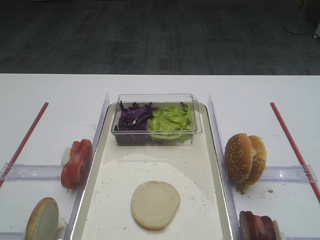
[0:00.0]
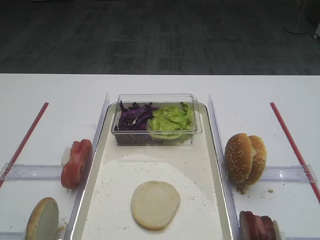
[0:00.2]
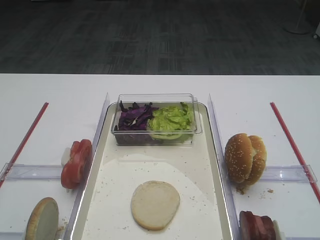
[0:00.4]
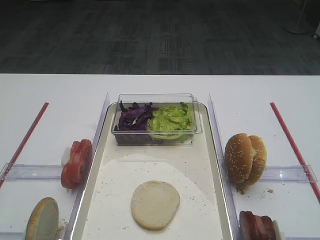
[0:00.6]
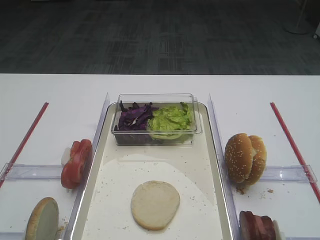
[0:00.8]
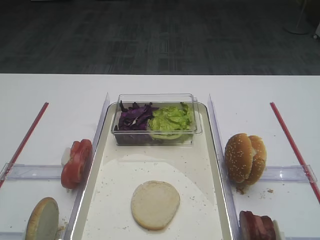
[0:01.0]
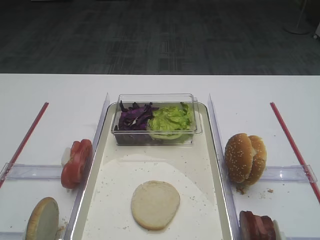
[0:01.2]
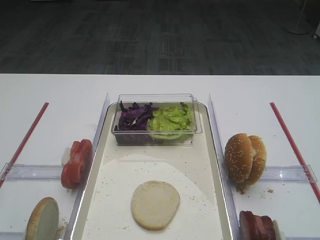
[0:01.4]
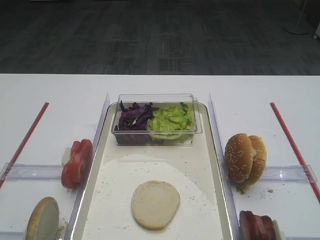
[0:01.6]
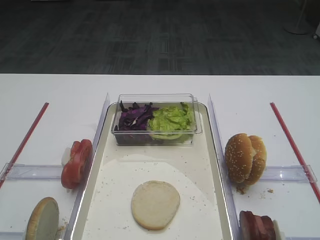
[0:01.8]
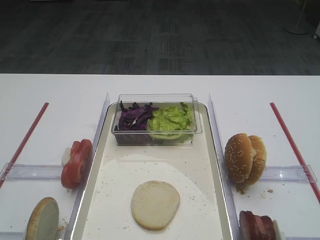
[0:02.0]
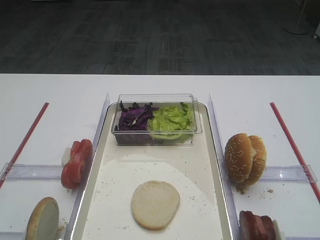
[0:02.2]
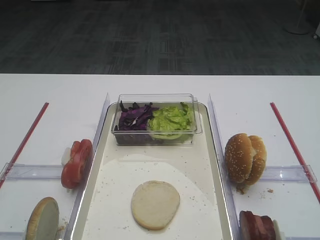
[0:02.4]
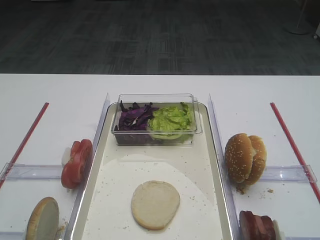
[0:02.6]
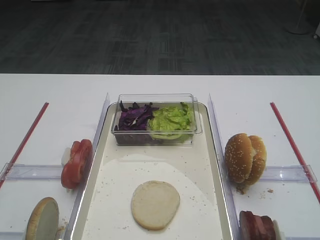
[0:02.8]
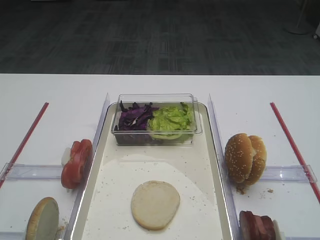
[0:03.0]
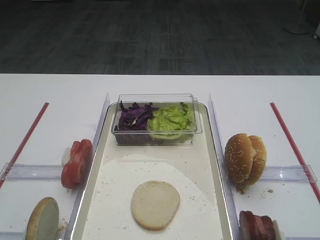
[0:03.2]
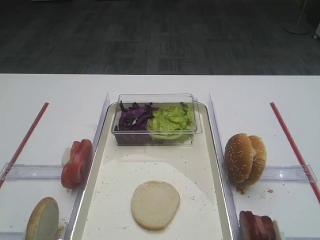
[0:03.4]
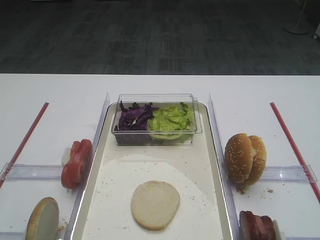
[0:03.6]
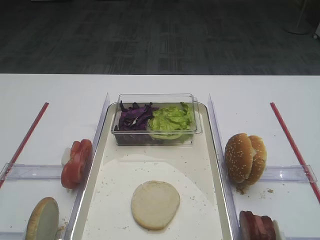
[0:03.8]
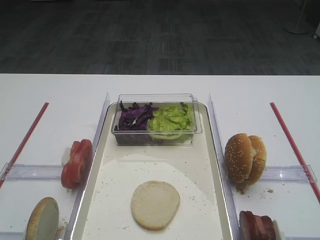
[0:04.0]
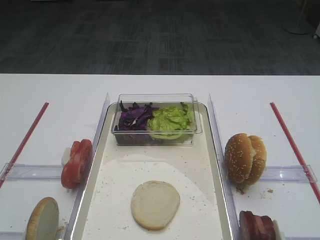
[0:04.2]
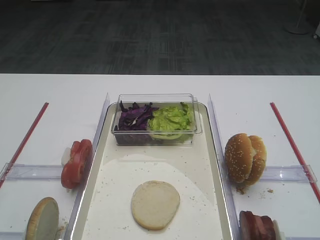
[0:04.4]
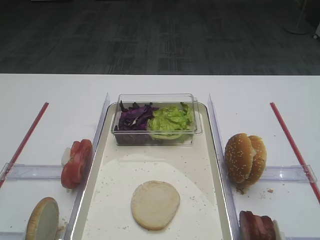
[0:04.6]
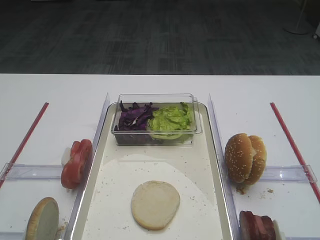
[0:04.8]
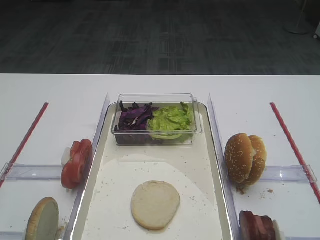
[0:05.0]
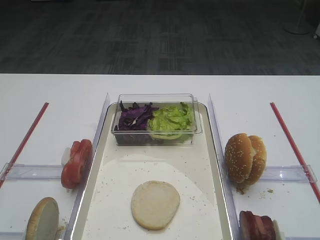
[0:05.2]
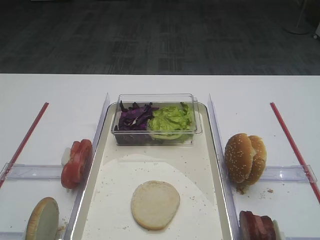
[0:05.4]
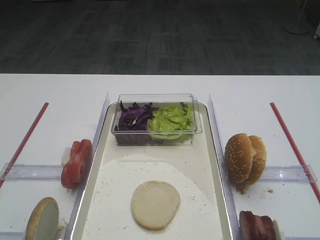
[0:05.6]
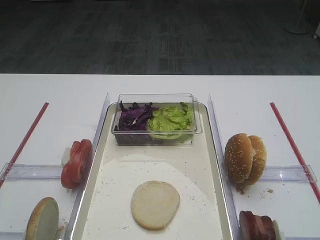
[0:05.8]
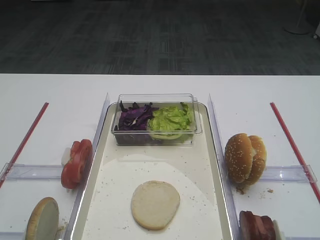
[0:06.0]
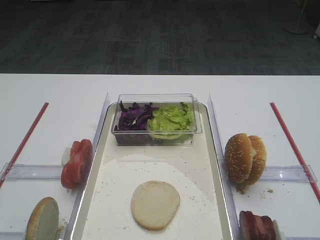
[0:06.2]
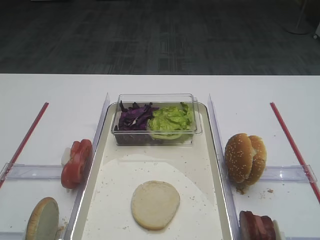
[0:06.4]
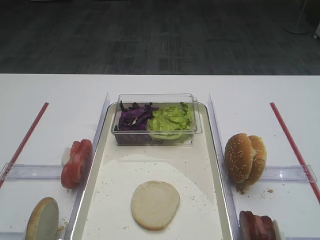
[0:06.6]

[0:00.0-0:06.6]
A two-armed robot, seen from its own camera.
0:01.6 to 0:06.6: Both grippers stay about where they are.

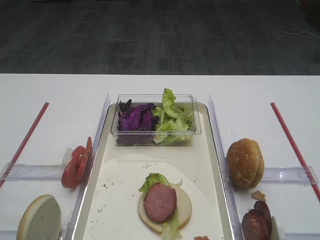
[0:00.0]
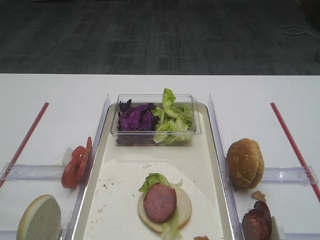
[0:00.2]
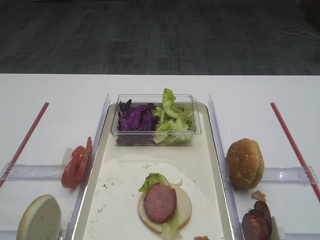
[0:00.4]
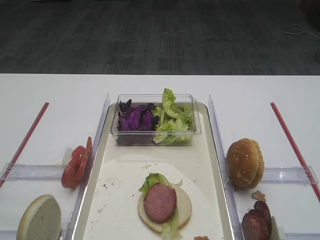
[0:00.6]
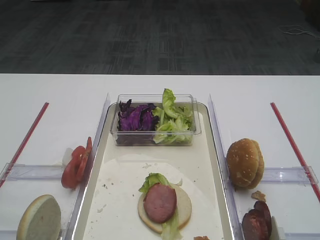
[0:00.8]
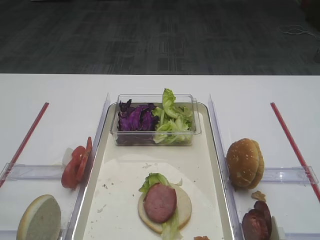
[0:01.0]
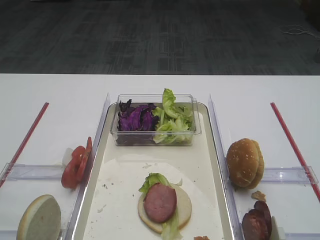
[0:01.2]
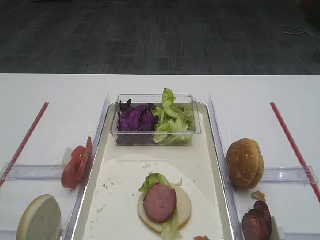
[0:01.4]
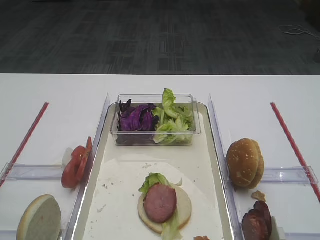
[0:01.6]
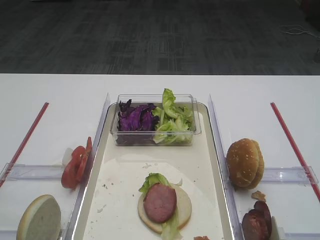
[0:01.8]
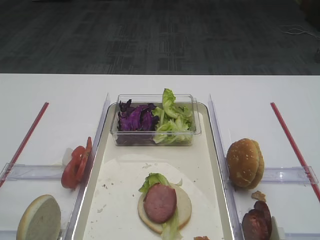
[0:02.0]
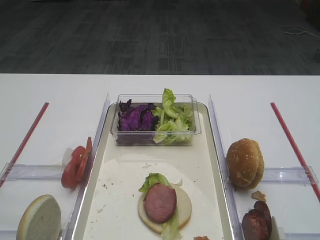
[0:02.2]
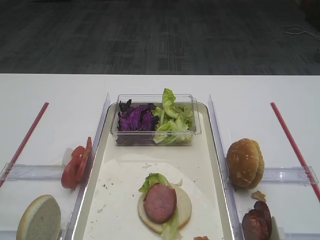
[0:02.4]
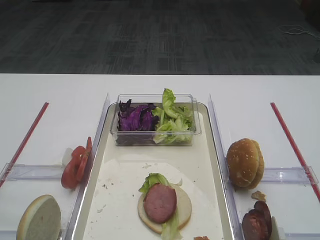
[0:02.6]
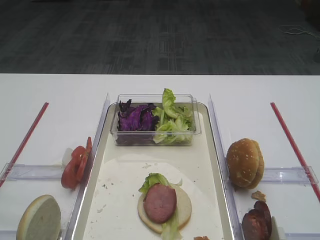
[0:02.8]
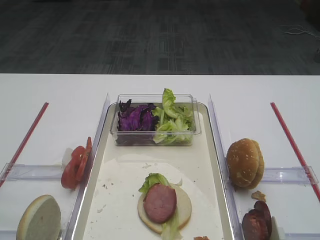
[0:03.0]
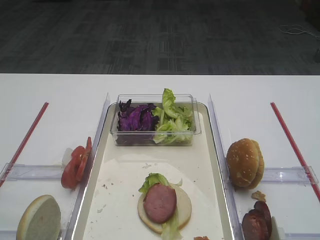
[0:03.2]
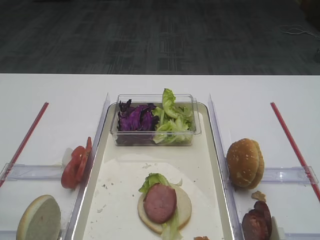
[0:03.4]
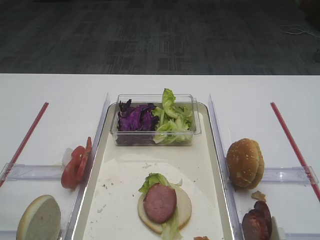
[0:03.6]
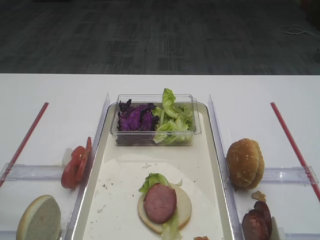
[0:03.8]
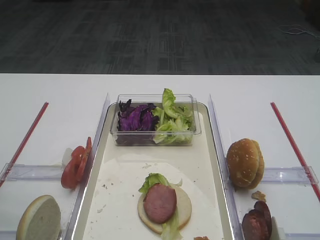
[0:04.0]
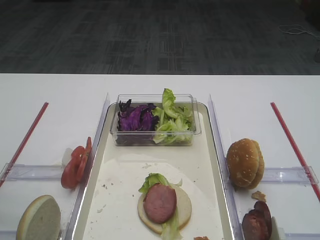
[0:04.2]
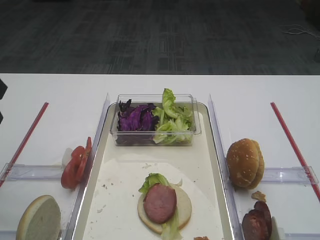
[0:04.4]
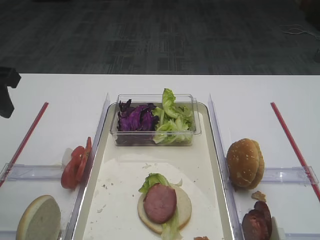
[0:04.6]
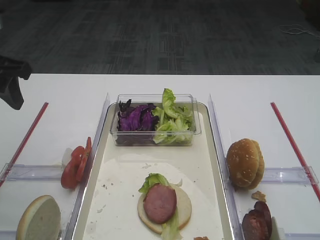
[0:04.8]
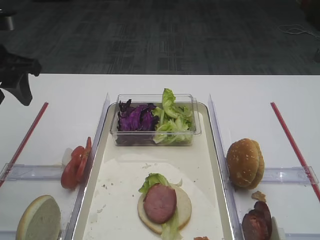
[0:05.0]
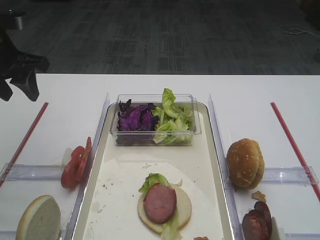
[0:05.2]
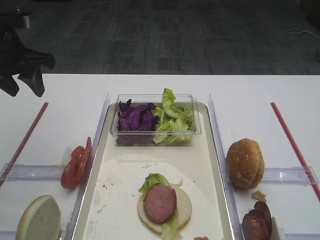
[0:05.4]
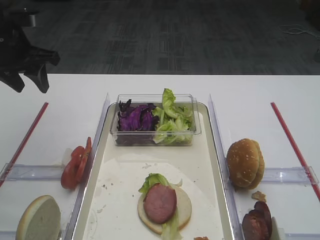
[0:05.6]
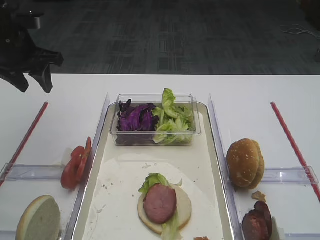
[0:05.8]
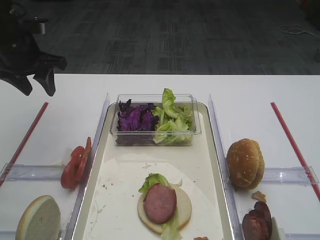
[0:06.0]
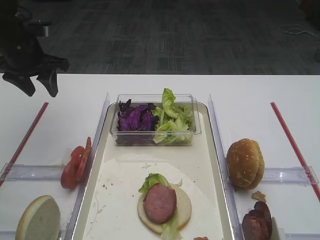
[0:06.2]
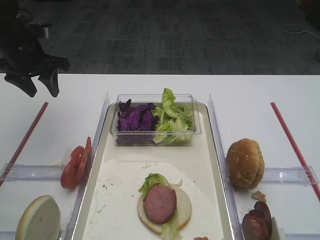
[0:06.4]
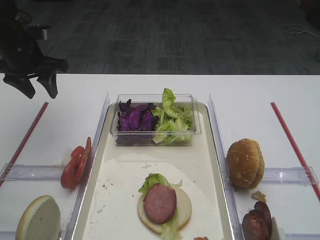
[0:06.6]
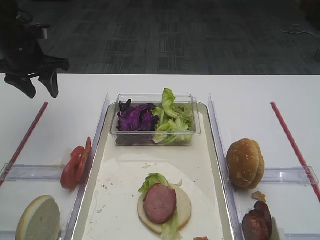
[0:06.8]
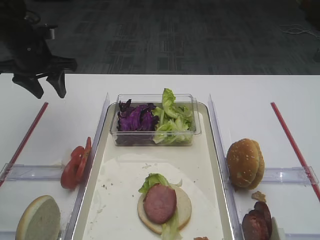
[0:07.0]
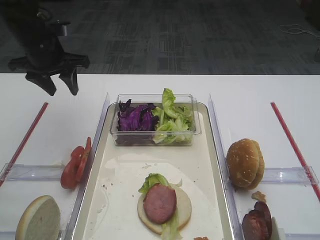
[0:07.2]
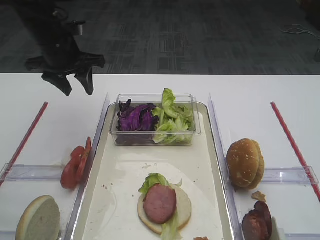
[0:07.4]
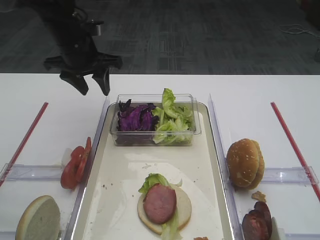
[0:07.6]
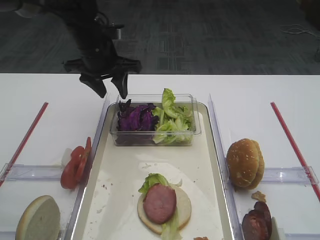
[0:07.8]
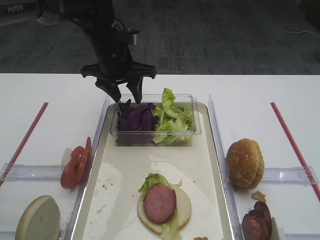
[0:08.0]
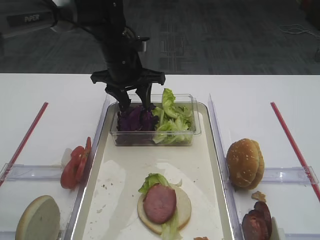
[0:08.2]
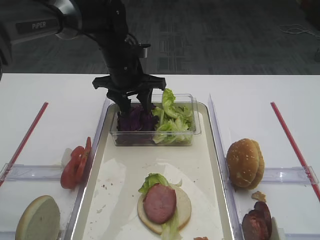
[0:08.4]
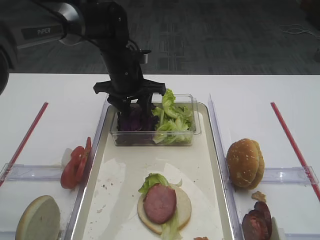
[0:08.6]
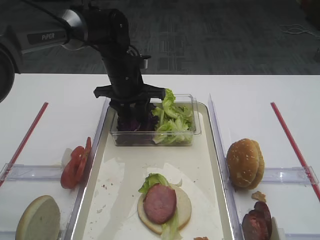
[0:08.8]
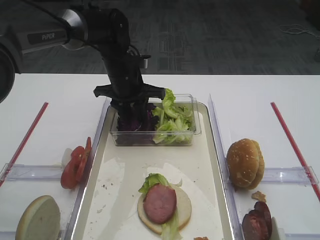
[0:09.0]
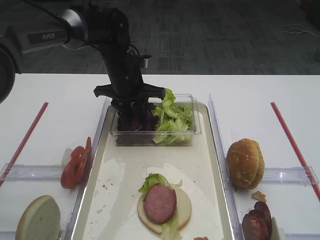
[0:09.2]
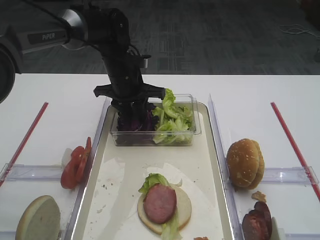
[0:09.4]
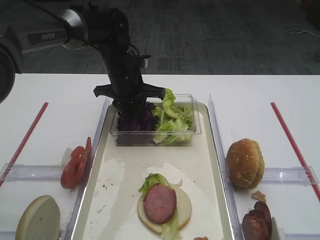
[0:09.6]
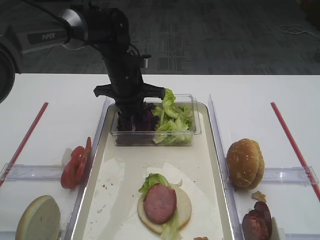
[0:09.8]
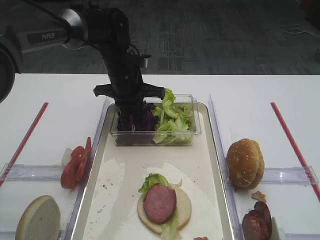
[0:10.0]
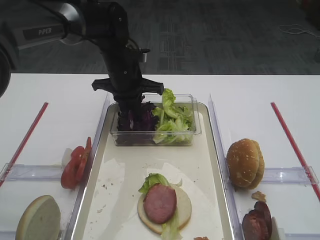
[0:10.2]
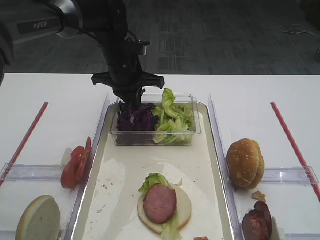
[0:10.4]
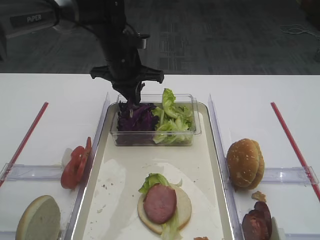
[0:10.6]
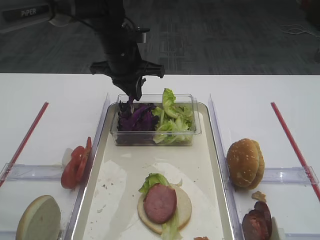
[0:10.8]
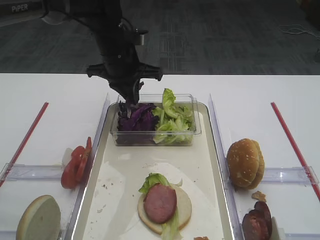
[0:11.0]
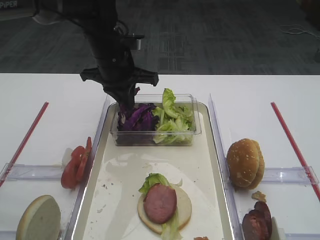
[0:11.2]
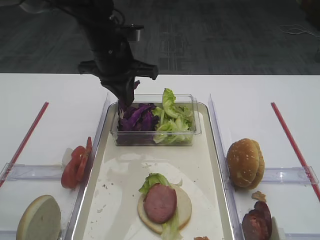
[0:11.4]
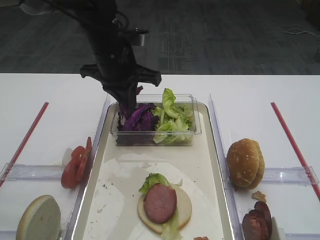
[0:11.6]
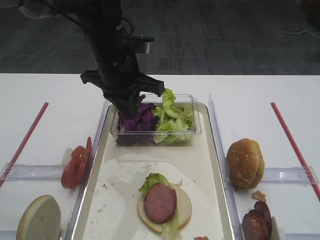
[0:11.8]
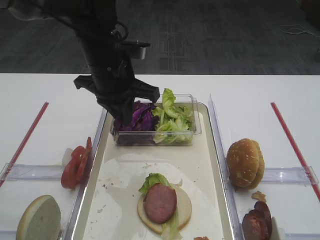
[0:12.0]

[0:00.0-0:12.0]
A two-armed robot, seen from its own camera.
Step, 0:00.0 to 0:11.2: Pick up the purple cabbage with the left gripper.
0:04.4 to 0:06.0: The left gripper moves forward, some 20 cm.
0:06.0 to 0:07.6: The left gripper travels to the right by some 10 cm.
0:07.6 to 0:09.0: The left gripper is displaced to the right and downward by about 10 cm.
0:09.0 to 0:10.4: The left gripper closes.
0:10.4 to 0:12.0: The left gripper travels backward by some 10 cm.

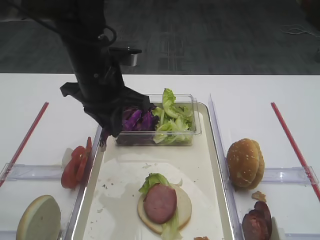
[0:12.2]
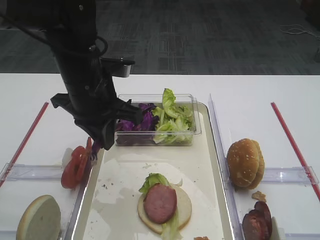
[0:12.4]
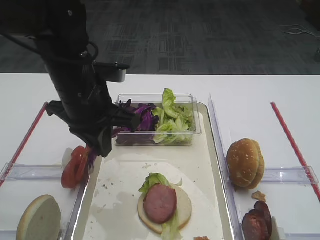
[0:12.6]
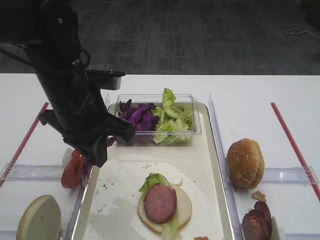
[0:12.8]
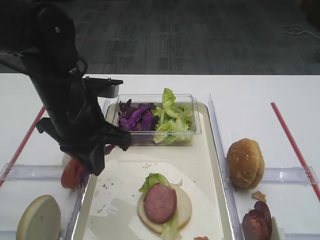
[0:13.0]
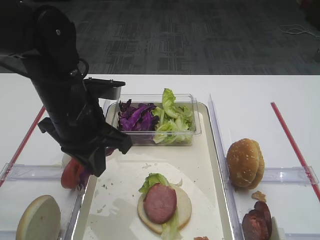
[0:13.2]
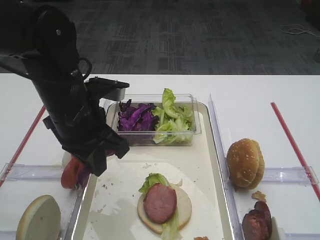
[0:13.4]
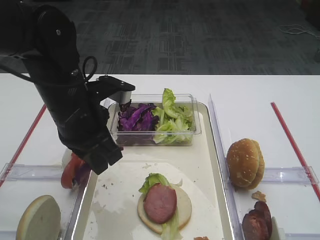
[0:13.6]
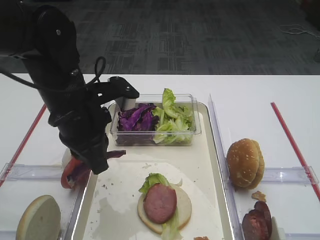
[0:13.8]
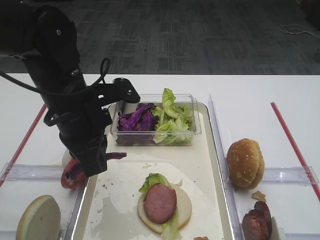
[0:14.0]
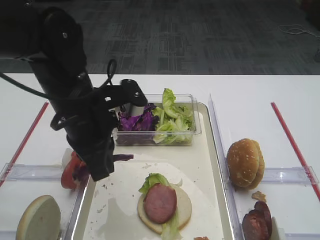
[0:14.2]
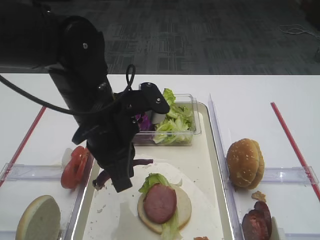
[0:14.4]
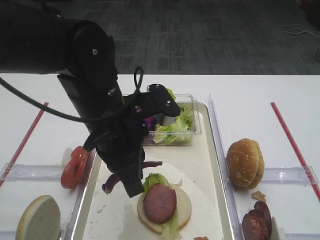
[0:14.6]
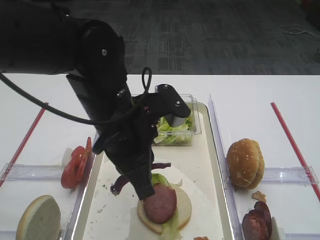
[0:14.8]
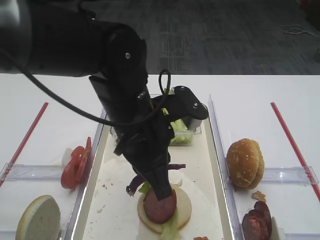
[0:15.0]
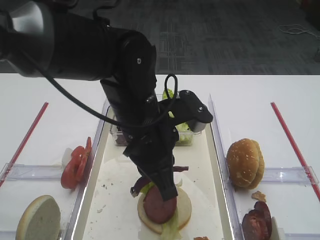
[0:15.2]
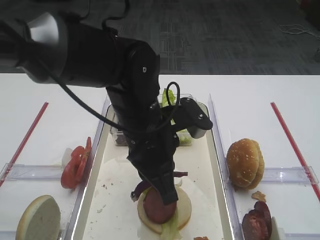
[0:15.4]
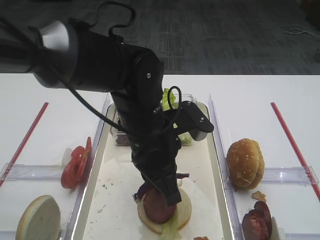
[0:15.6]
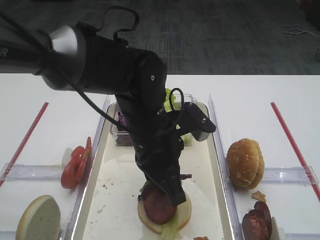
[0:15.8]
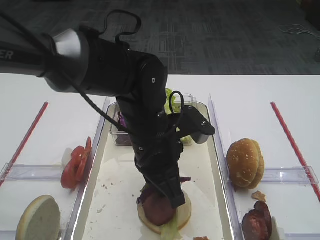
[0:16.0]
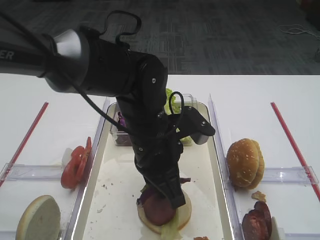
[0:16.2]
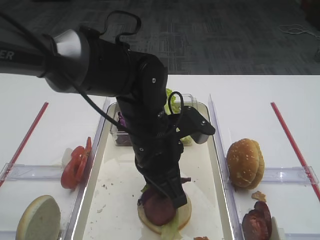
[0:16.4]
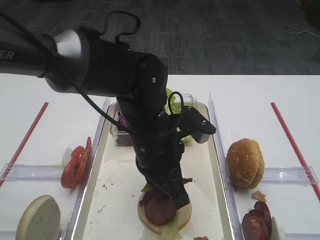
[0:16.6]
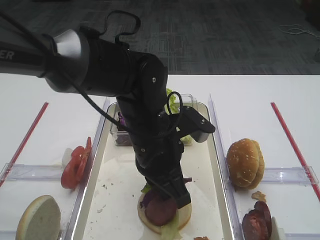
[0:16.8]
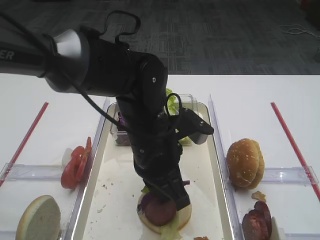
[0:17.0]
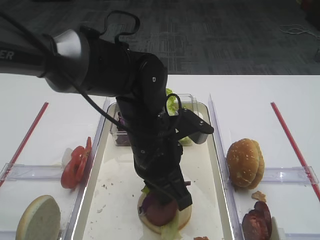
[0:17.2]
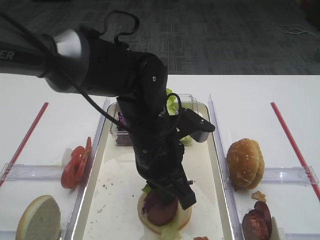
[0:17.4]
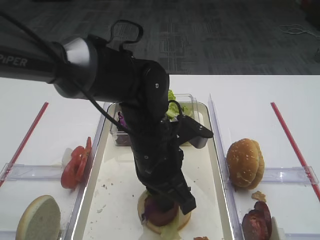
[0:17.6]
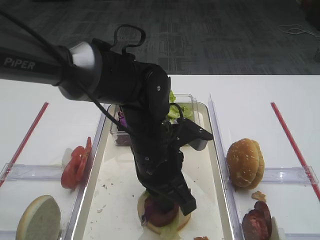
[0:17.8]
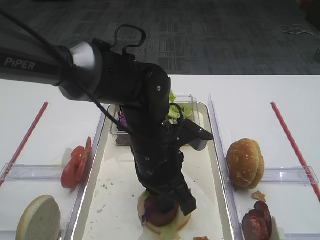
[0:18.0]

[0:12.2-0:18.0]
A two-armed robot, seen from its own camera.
0:12.2 to 0:13.6: The left gripper is displaced backward by roughly 5 cm.
0:13.6 to 0:15.0: The left gripper goes about 10 cm to the right.
0:15.0 to 0:16.6: The left gripper swings up and down, roughly 10 cm each way, with 2 reversals.
0:16.6 to 0:18.0: The grippers make only small movements.
